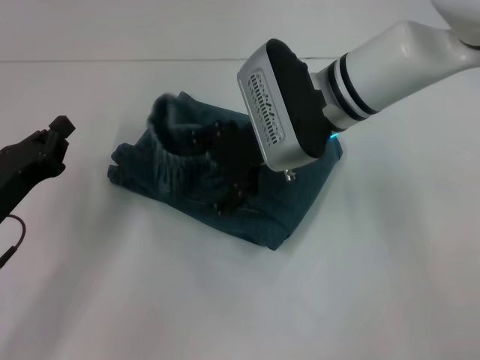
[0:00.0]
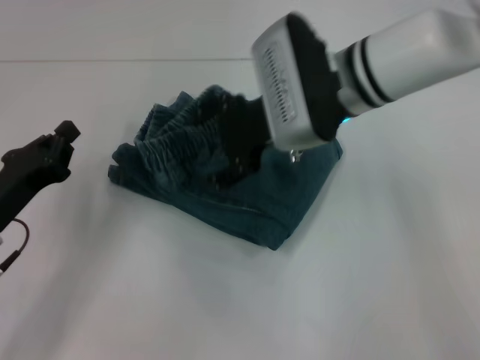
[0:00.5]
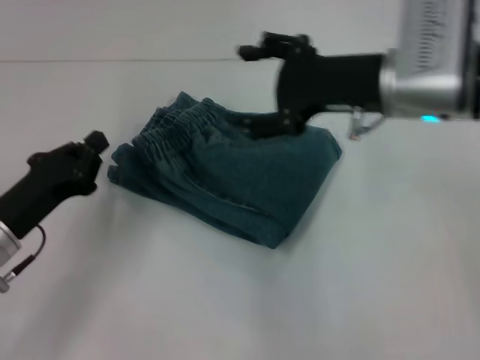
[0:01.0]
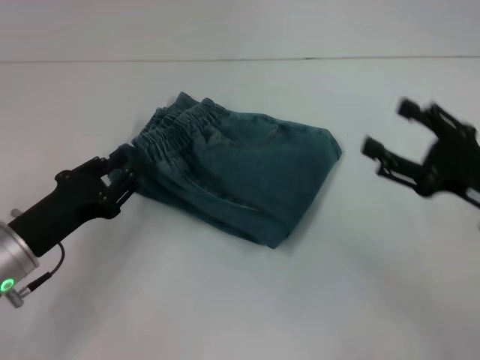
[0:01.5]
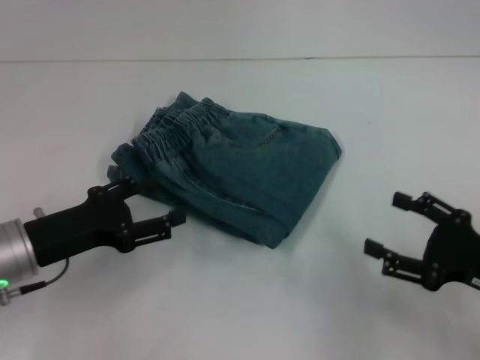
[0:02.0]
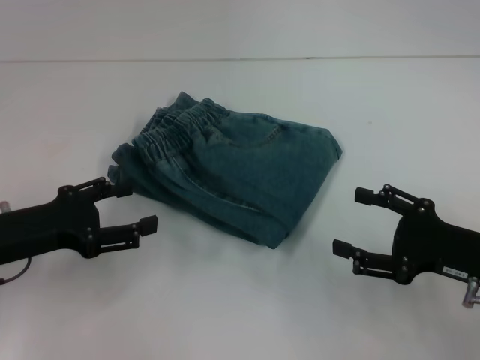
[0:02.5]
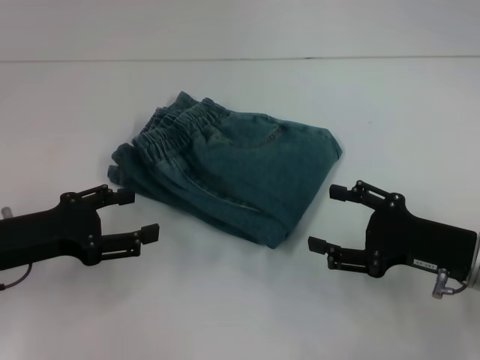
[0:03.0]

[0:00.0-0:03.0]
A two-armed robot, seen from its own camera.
0:00.0 to 0:01.5: The right gripper goes approximately 25 cm to the right and backward.
0:01.5 to 0:03.0: The left gripper opens up.

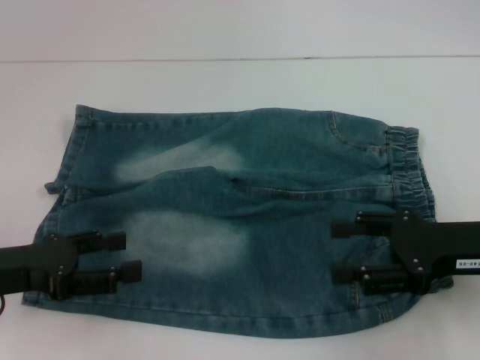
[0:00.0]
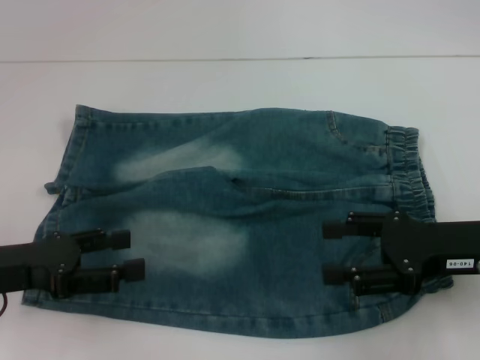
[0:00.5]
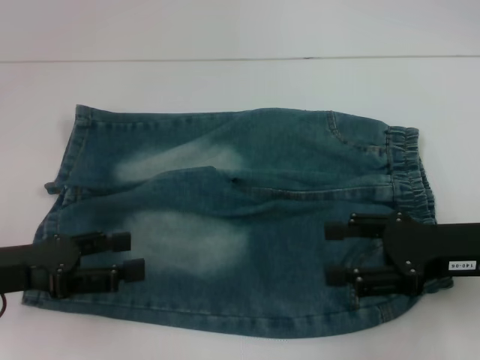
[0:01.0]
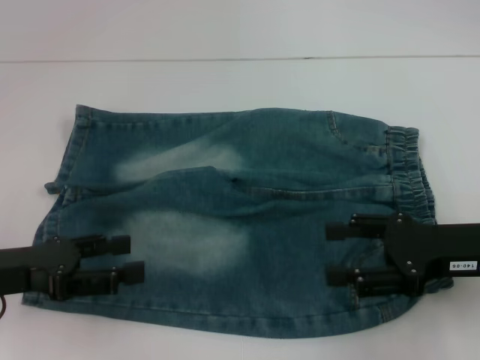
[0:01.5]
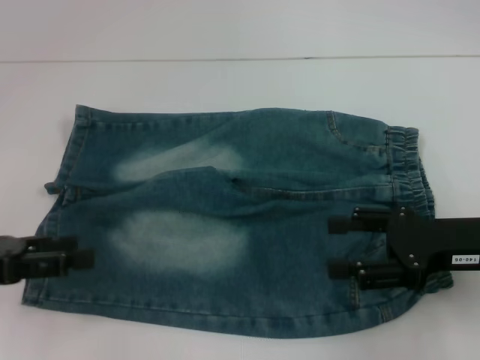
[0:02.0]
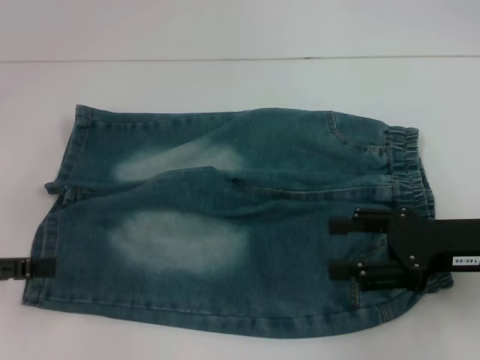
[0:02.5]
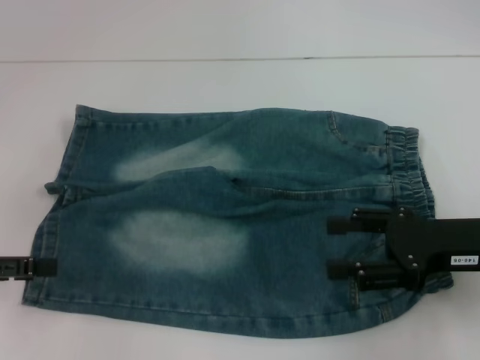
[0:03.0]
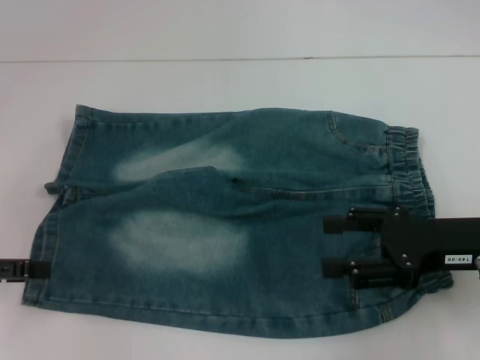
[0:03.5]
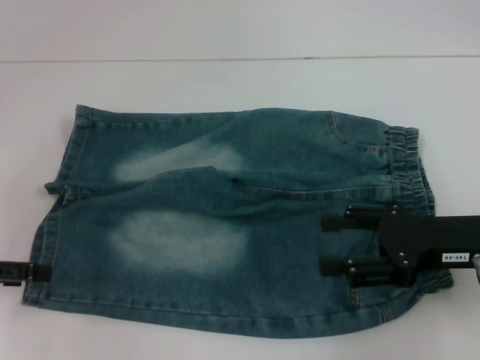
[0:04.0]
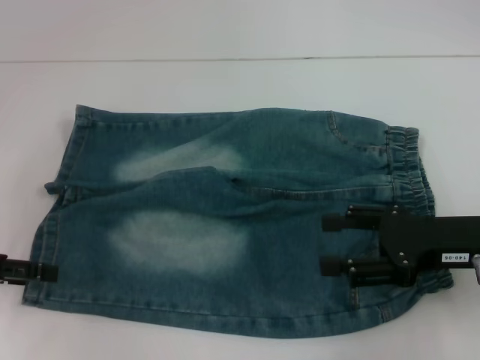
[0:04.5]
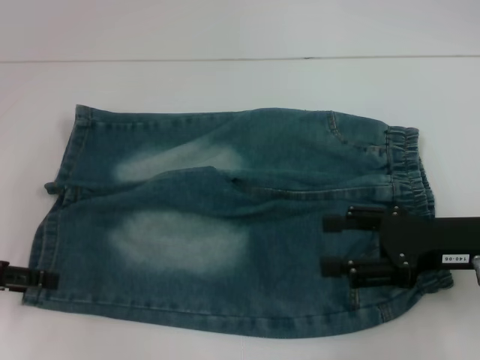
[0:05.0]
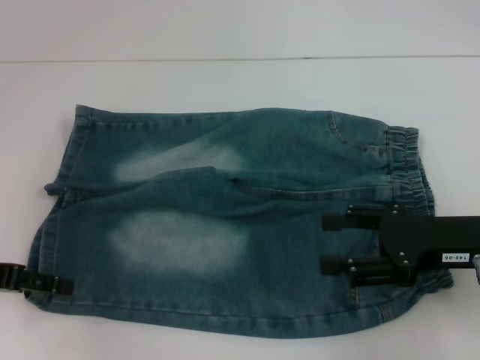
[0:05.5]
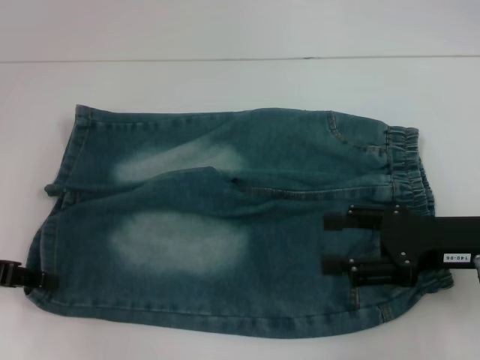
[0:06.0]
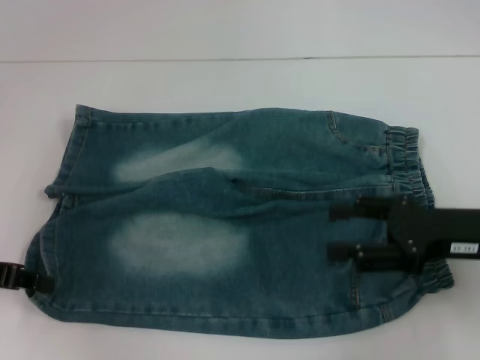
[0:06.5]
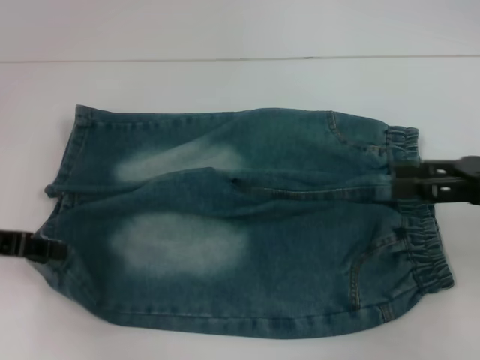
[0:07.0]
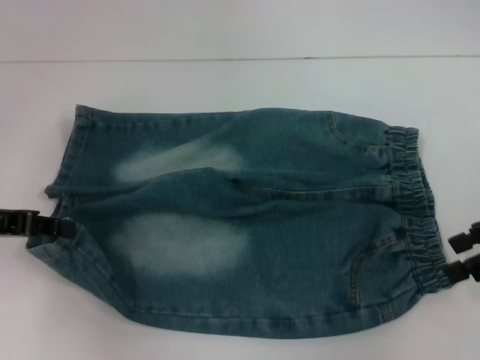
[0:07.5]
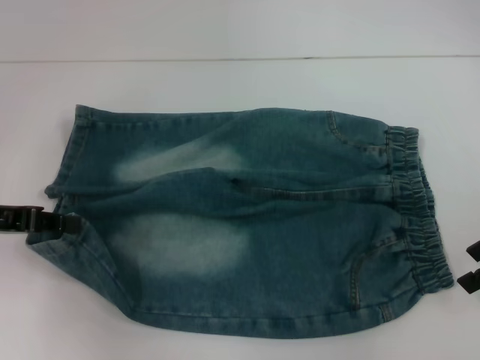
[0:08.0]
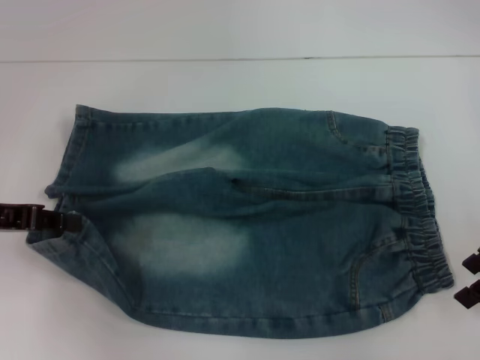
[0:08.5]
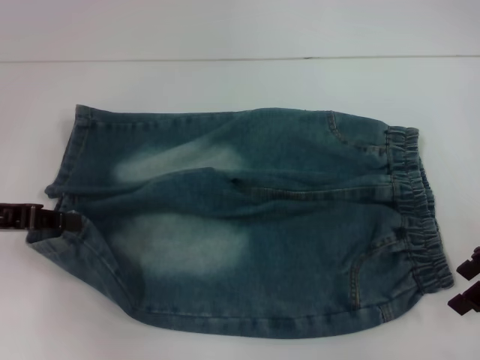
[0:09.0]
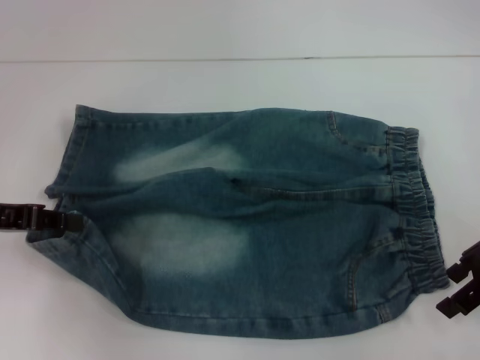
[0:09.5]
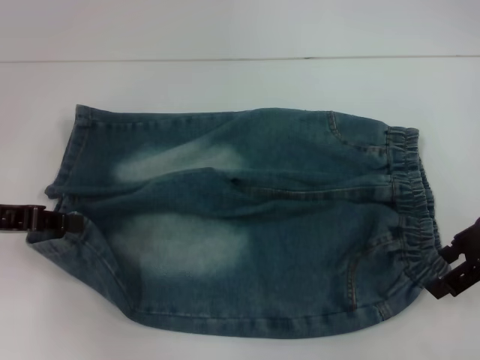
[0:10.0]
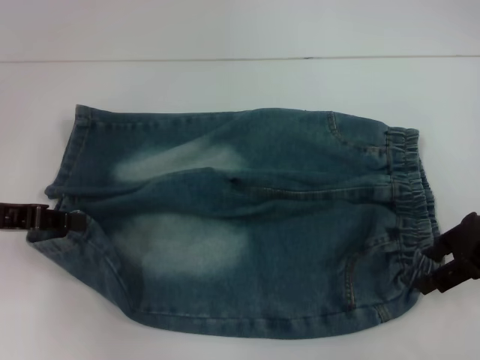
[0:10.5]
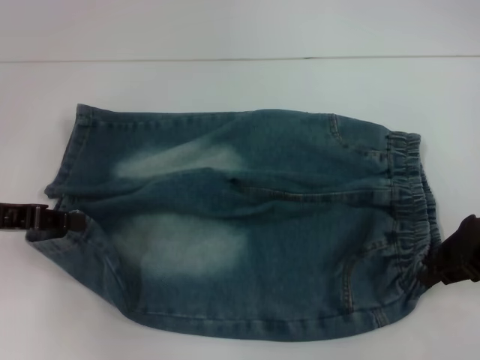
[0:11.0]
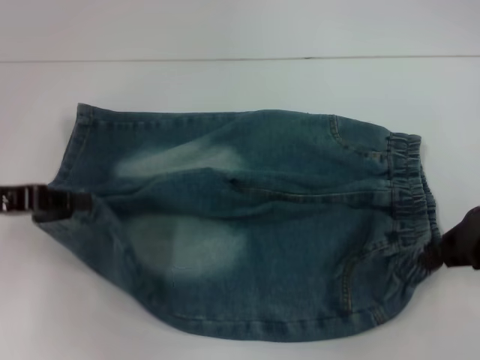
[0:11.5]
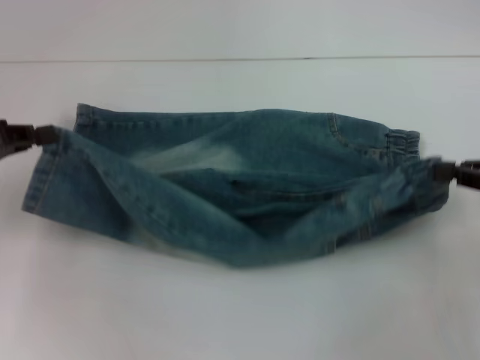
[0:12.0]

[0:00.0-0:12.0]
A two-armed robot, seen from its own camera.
Step, 0:00.0 to 0:06.0: Grab the lower left pant leg with your left hand.
Step, 0:06.5 to 0:11.0: Hold the lower right waistband with your right hand.
0:00.0 to 0:02.0: The grippers move only a little.
0:04.0 to 0:06.0: The left gripper closes up.
0:06.0 to 0:08.0: The right gripper goes roughly 10 cm to the right, upward and forward, while the left gripper closes up.
0:08.0 to 0:10.0: There are only small adjustments of the grippers.
0:10.0 to 0:12.0: The right gripper shifts some 5 cm to the right, and closes.

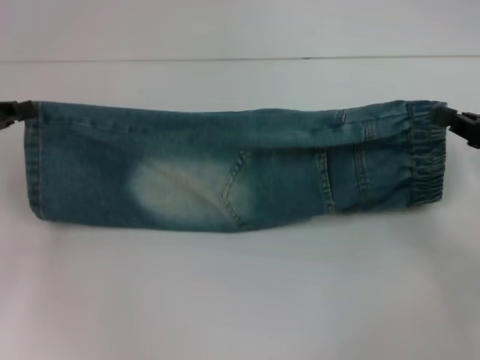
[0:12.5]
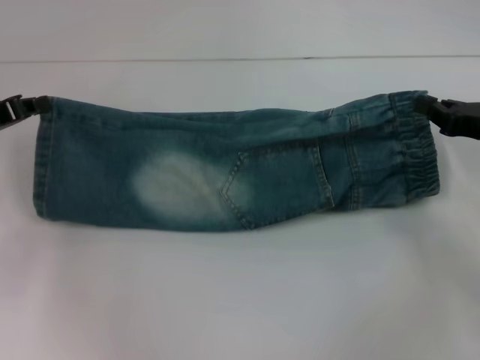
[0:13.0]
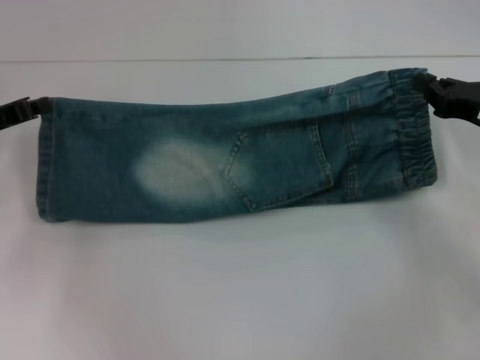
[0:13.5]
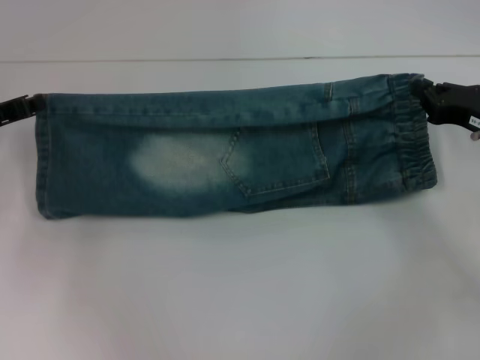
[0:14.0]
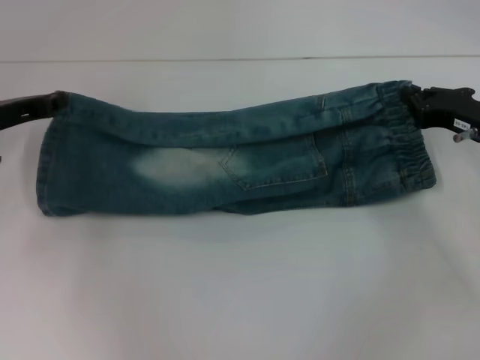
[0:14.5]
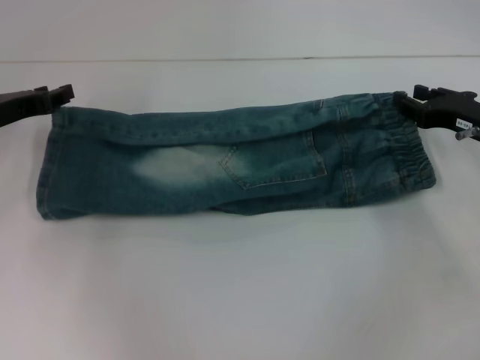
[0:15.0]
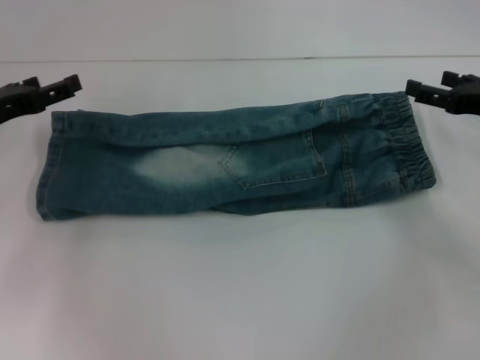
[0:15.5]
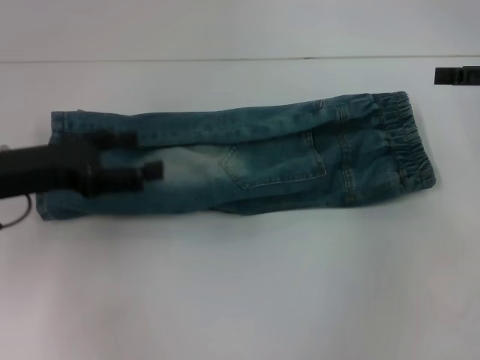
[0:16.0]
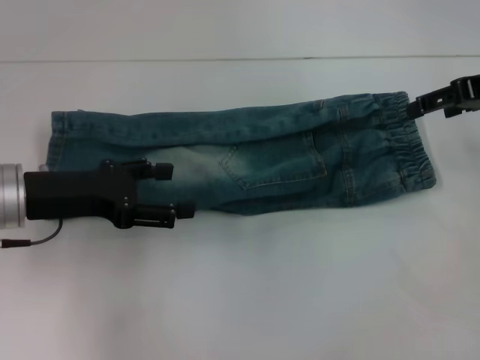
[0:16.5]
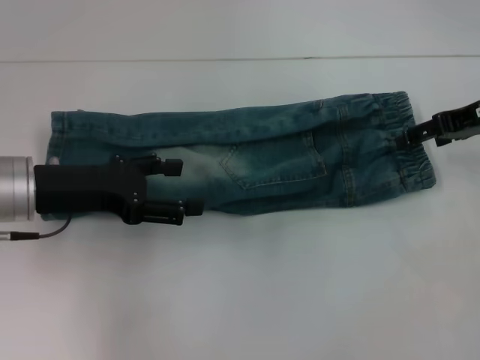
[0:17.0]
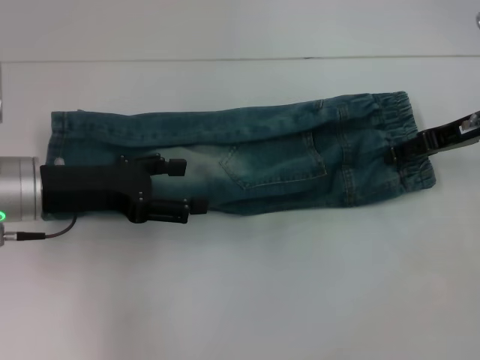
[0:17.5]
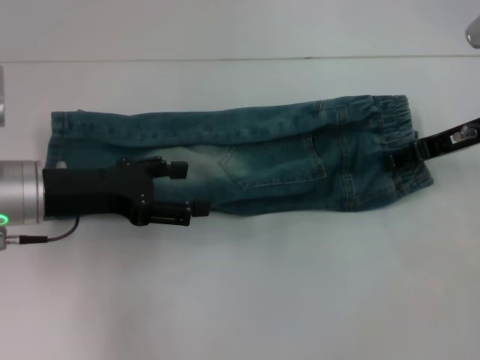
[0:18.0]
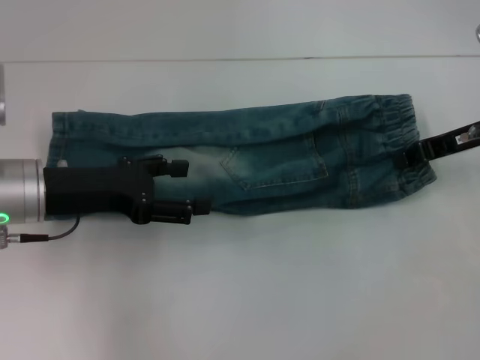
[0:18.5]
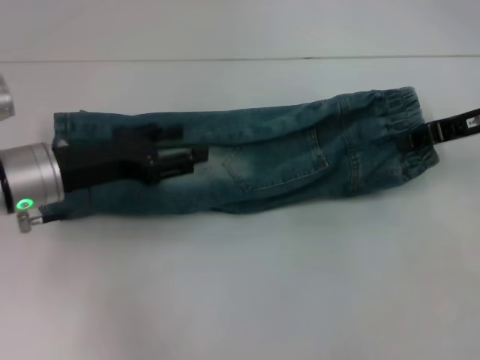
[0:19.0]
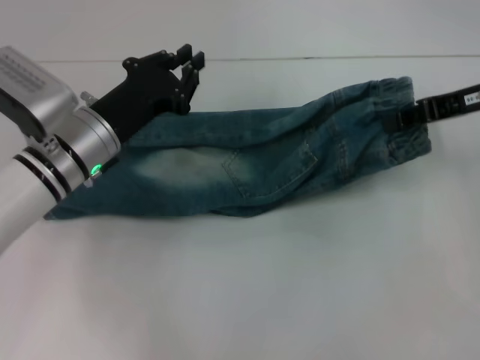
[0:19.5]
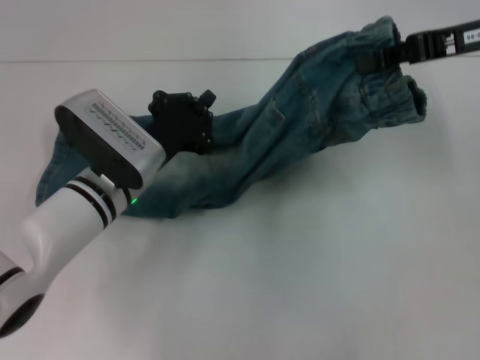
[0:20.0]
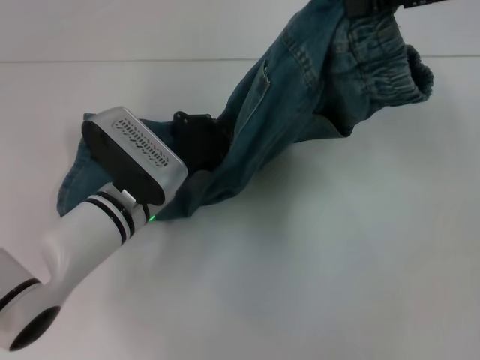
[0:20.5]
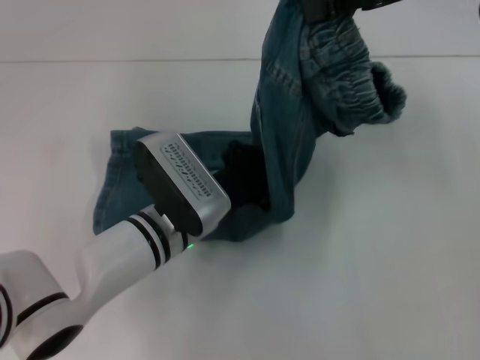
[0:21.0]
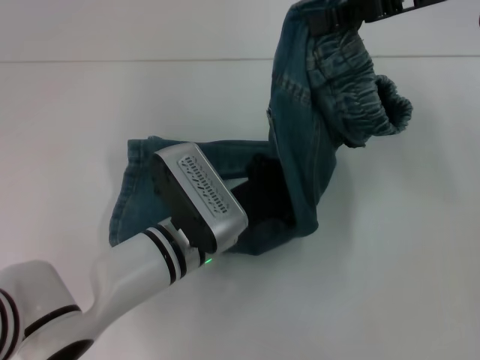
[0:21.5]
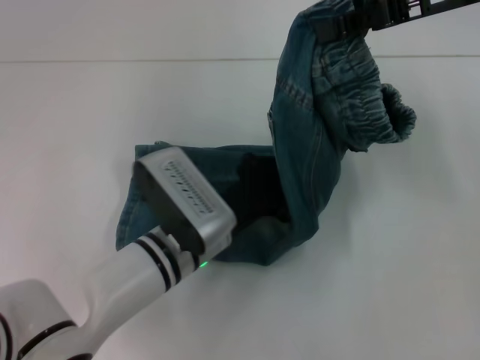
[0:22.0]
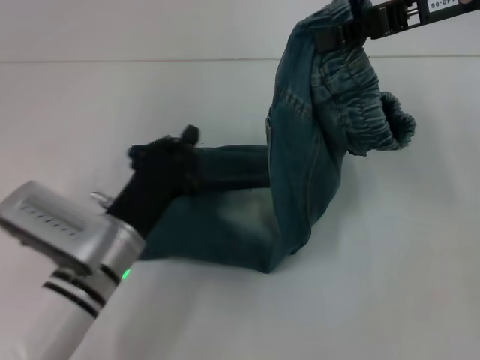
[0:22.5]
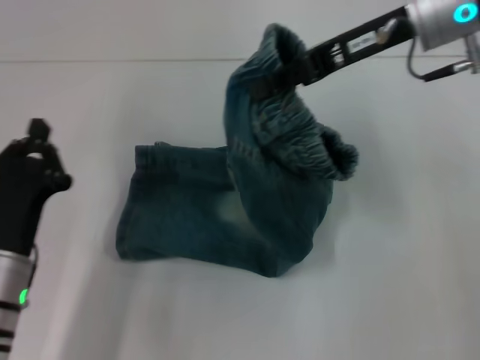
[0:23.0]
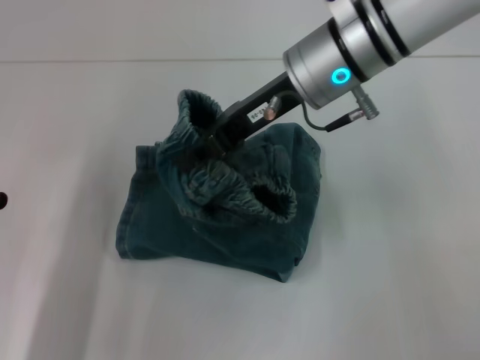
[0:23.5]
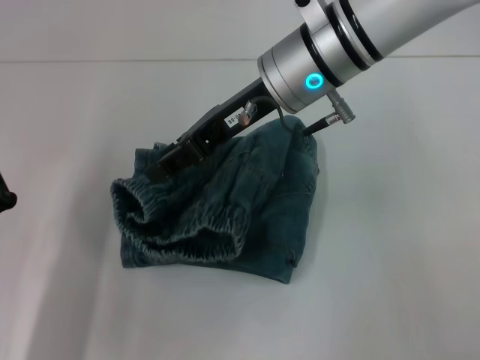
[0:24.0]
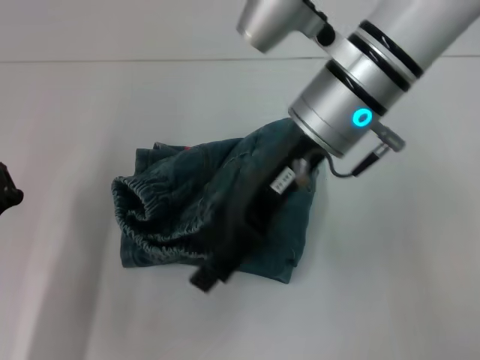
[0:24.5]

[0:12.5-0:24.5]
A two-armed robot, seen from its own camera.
Step, 0:12.5 to 0:14.5: Fold upward with your right hand.
Step, 0:15.0 to 0:18.5: Grab the waistband with your right hand.
Step, 0:19.0 to 0:21.5: Press the middle of the pants with your left hand.
0:12.5 to 0:14.5: The left gripper moves approximately 5 cm; the right gripper heads forward, covering about 5 cm.
0:14.5 to 0:16.5: The right gripper goes approximately 15 cm upward, and opens its fingers, while the left gripper moves backward and to the right, roughly 10 cm, and opens its fingers.
0:16.5 to 0:18.5: The right gripper moves downward, approximately 5 cm, and closes its fingers.
0:18.5 to 0:20.5: The right gripper is displaced upward by some 15 cm. Meanwhile the left gripper is displaced to the right and downward by about 15 cm, and closes.
0:20.5 to 0:22.5: The left gripper moves backward, about 5 cm.
0:22.5 to 0:24.5: The right gripper travels to the left by some 15 cm, and opens up; the left gripper shifts approximately 15 cm to the left and backward.
